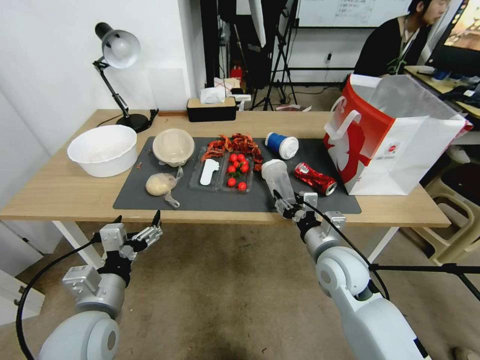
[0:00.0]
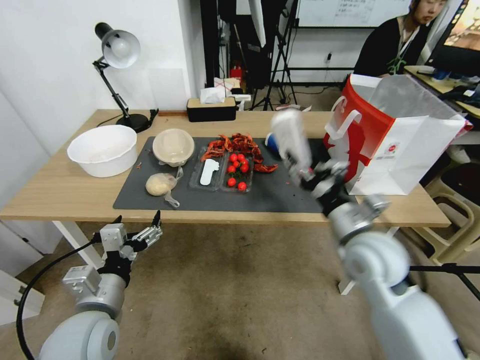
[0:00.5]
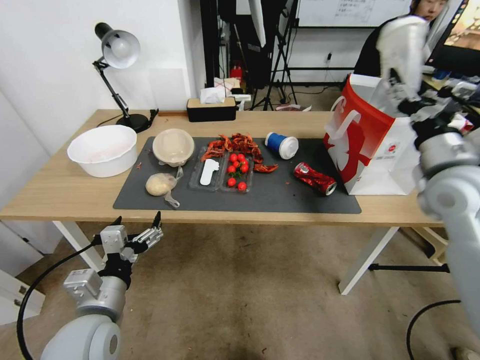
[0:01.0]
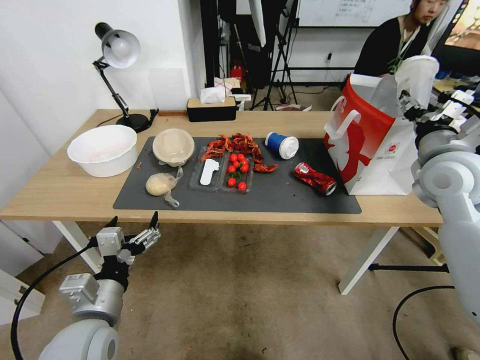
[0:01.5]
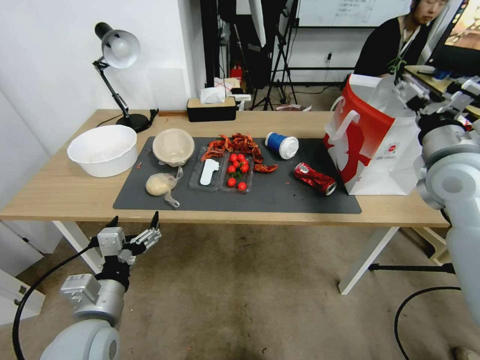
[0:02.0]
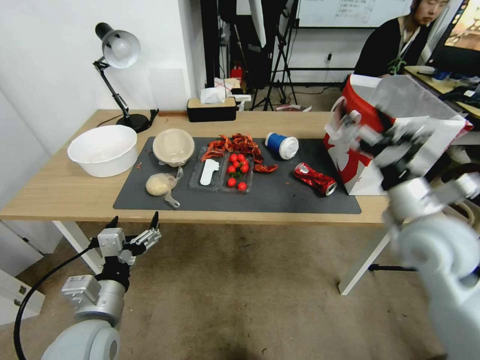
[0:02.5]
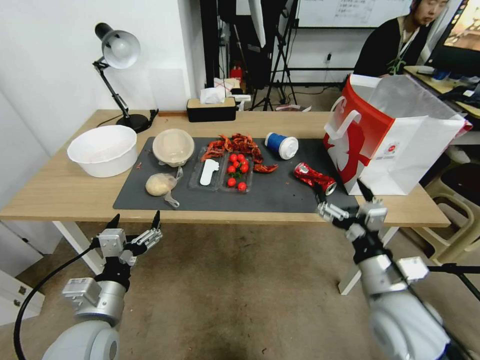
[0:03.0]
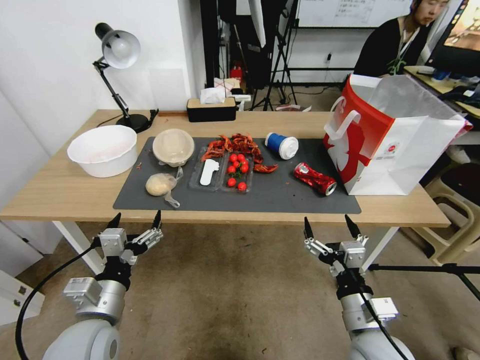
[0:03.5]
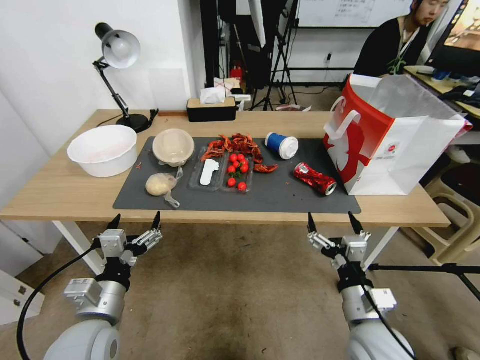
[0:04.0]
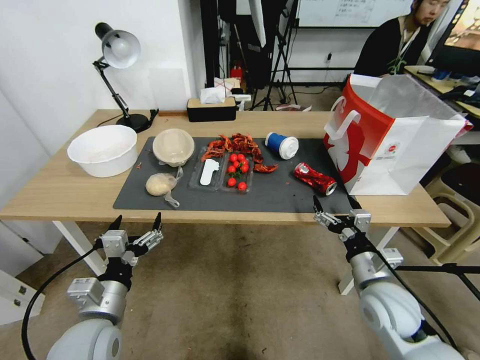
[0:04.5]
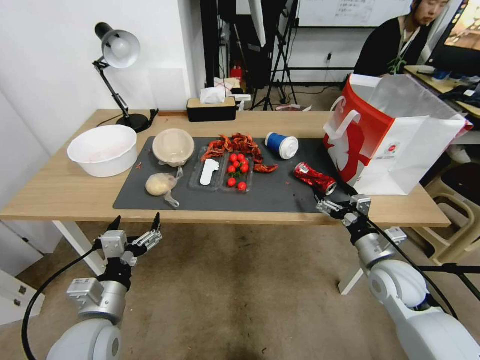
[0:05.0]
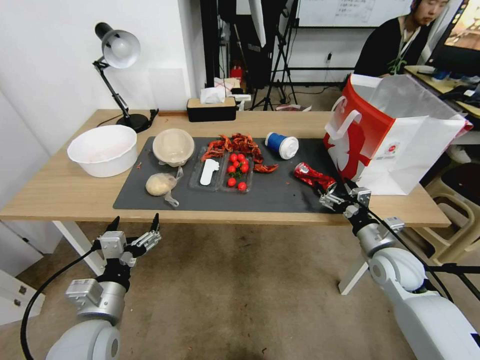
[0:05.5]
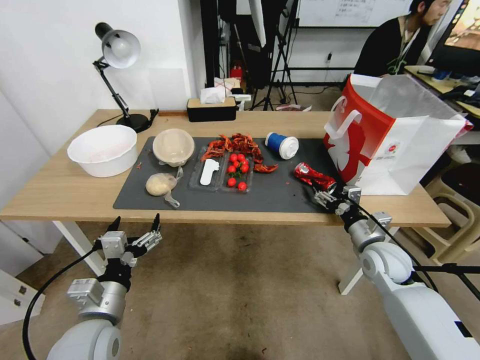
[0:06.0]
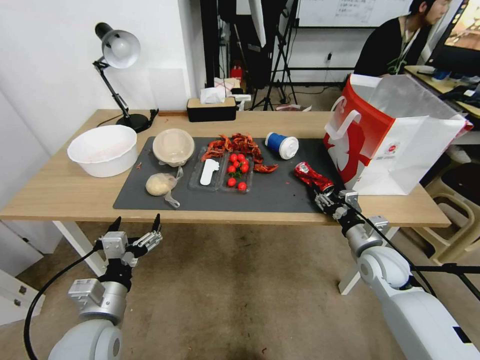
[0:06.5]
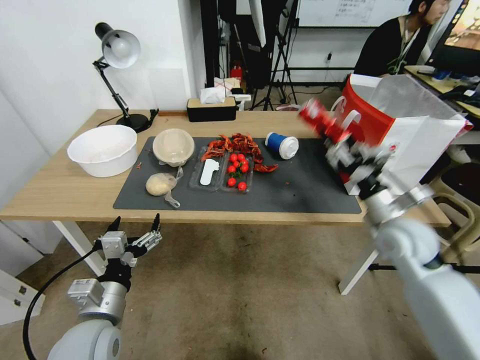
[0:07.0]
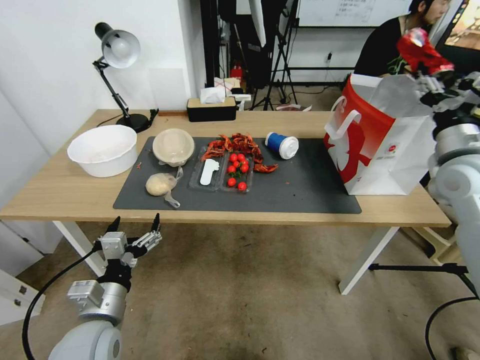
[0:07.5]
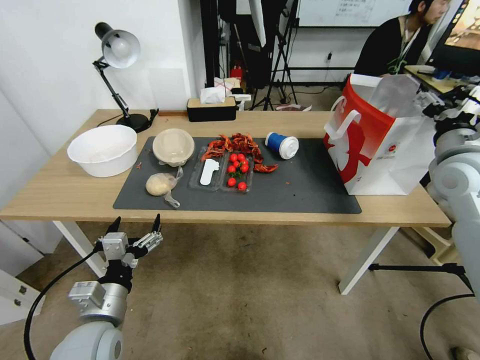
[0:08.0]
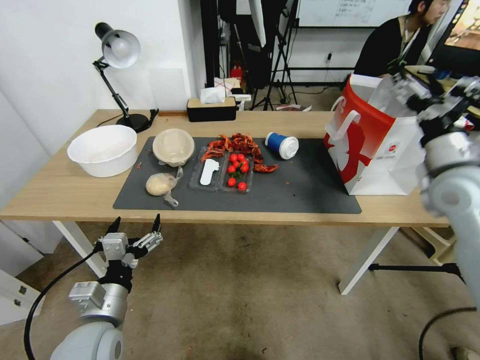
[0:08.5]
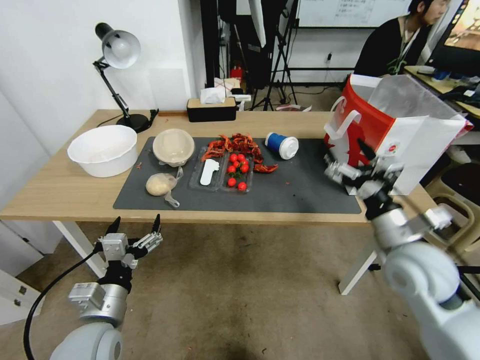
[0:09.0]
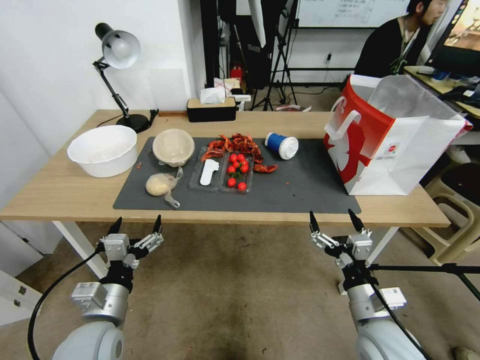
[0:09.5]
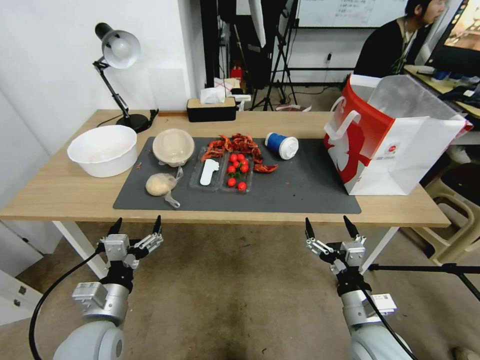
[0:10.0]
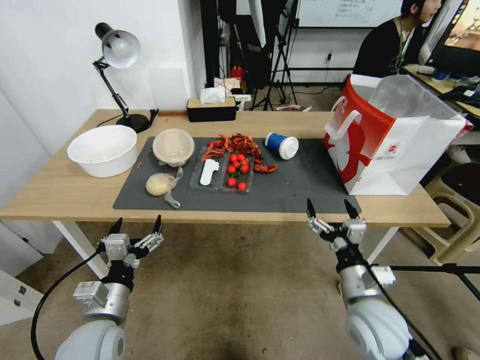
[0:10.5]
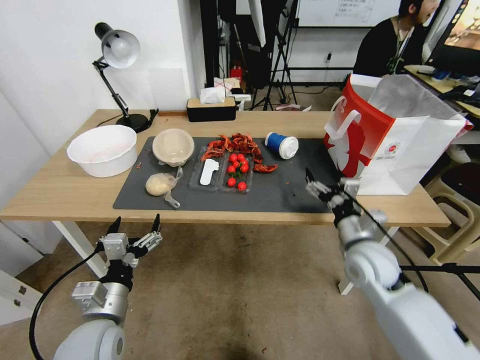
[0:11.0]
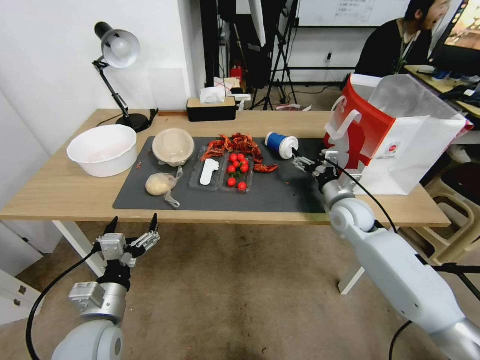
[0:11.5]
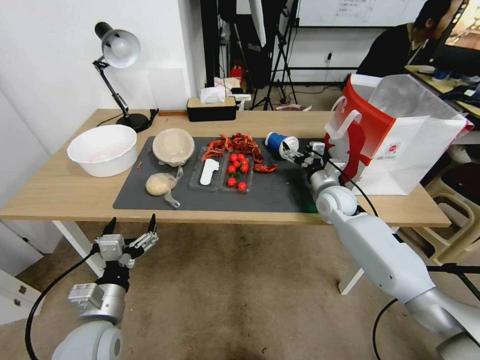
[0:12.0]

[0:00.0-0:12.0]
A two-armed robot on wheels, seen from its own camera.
0.0 to 2.0 s: The right gripper moves upward and to the right, about 25 cm, and opens its fingers.
2.0 to 4.0 s: The right gripper is displaced downward, backward and to the left by some 35 cm.
4.0 to 6.0 s: The right gripper moves forward and to the right, about 20 cm.
6.0 to 8.0 s: The right gripper heads upward, covering some 25 cm, and closes, then opens again.
8.0 to 10.0 s: The right gripper goes roughly 35 cm downward, backward and to the left, and opens up.
10.0 to 12.0 s: The right gripper is displaced forward by roughly 30 cm.

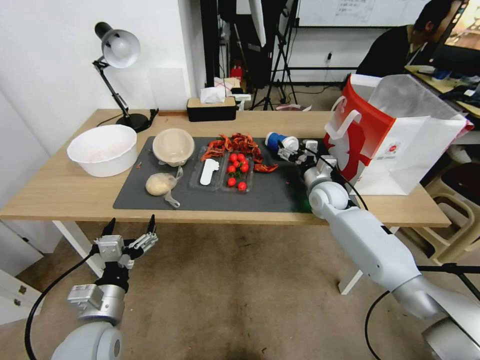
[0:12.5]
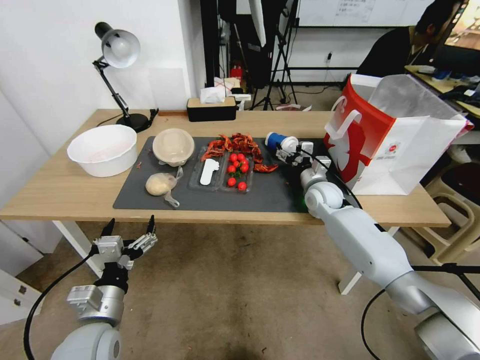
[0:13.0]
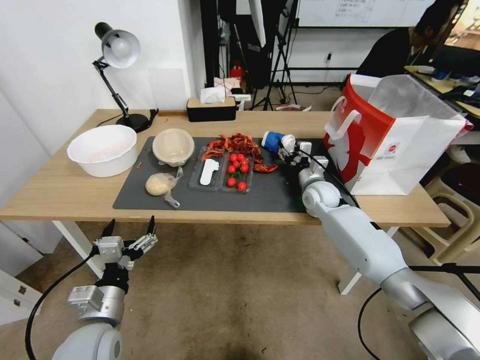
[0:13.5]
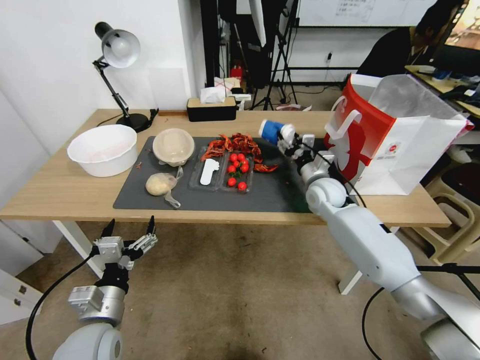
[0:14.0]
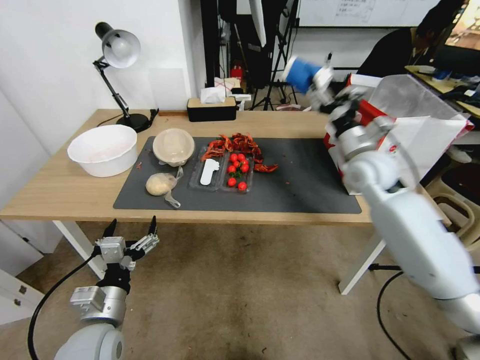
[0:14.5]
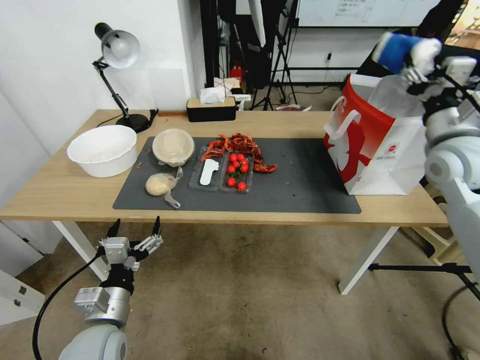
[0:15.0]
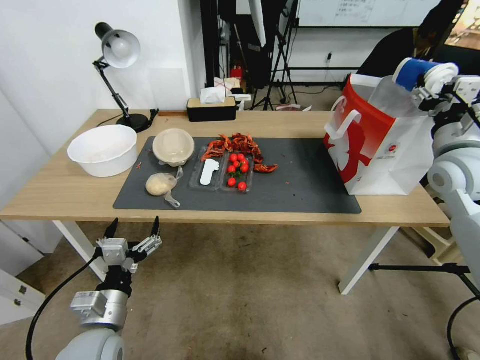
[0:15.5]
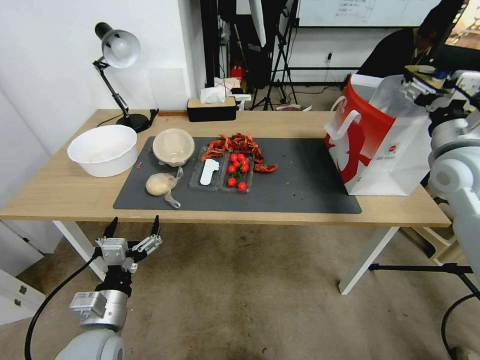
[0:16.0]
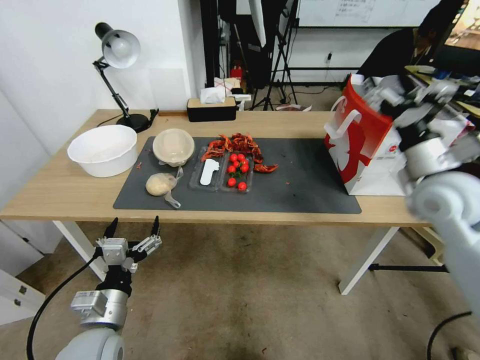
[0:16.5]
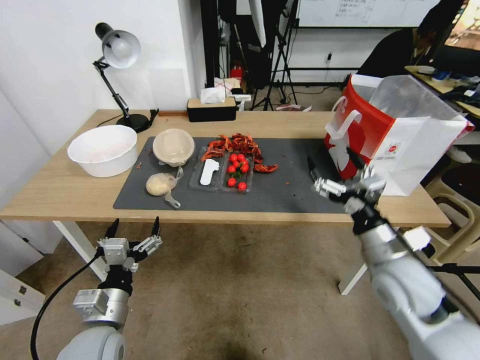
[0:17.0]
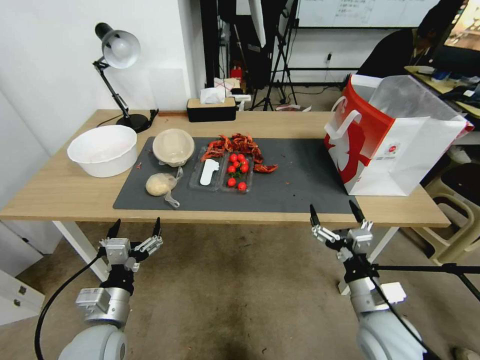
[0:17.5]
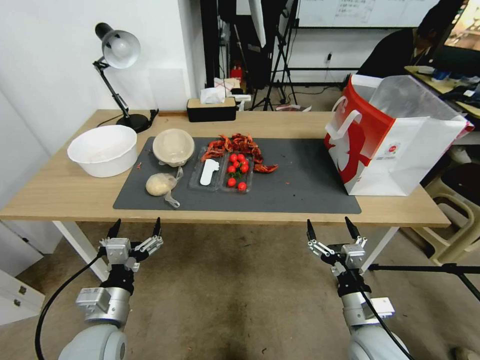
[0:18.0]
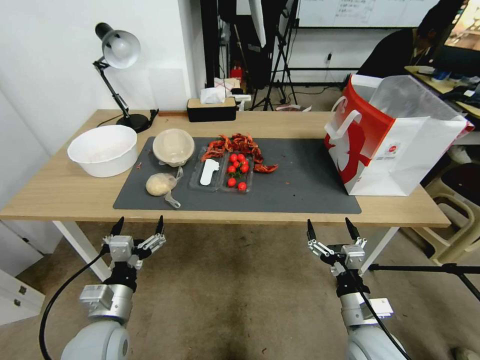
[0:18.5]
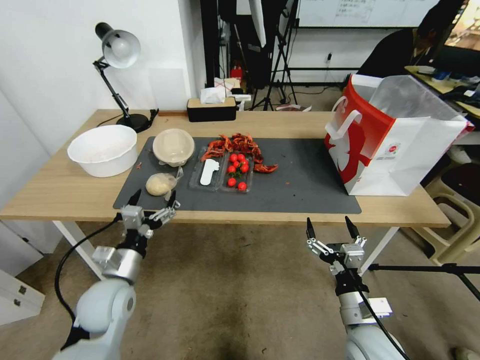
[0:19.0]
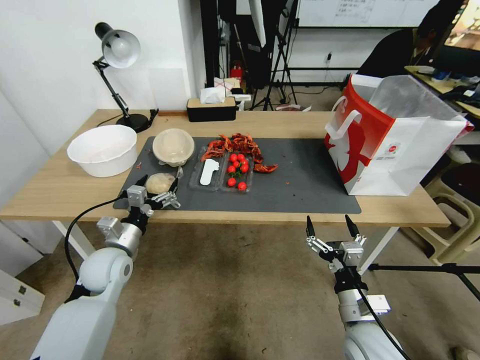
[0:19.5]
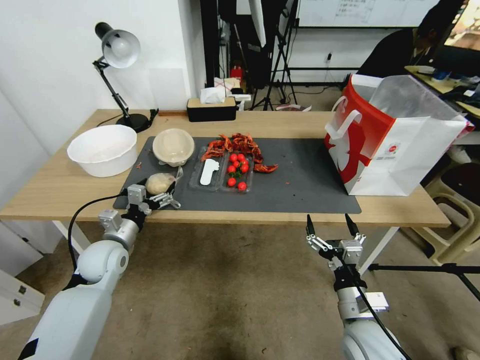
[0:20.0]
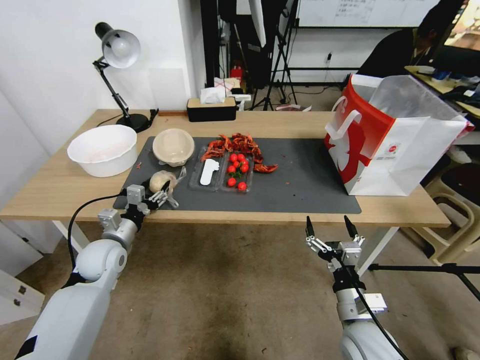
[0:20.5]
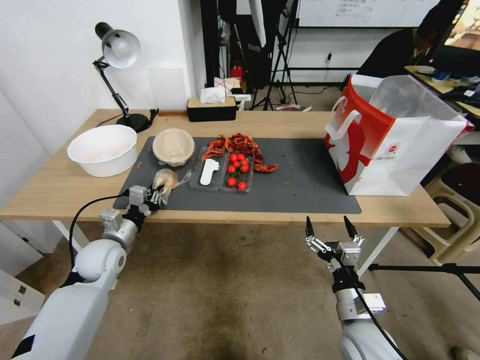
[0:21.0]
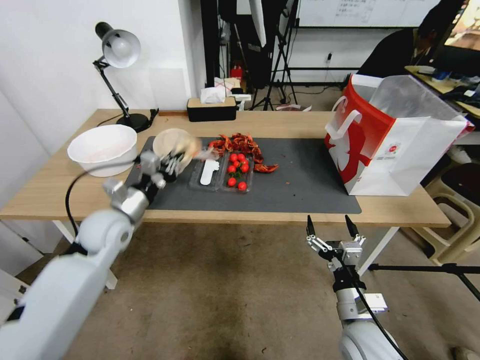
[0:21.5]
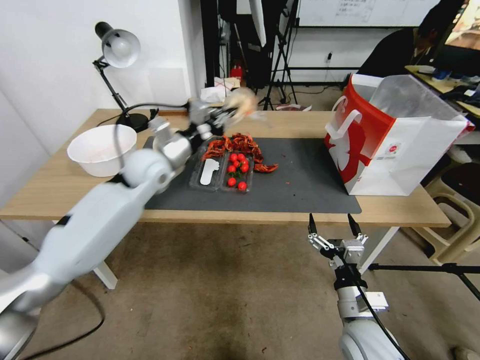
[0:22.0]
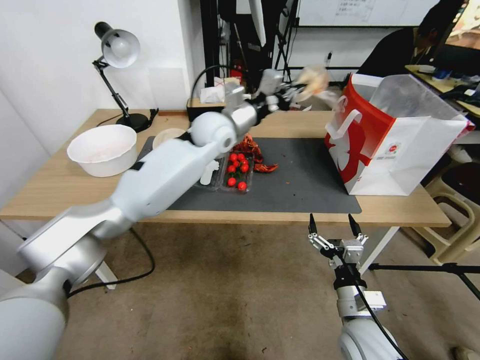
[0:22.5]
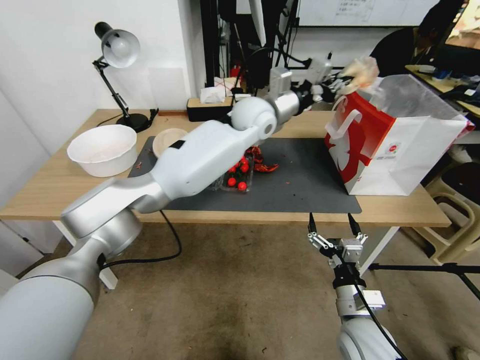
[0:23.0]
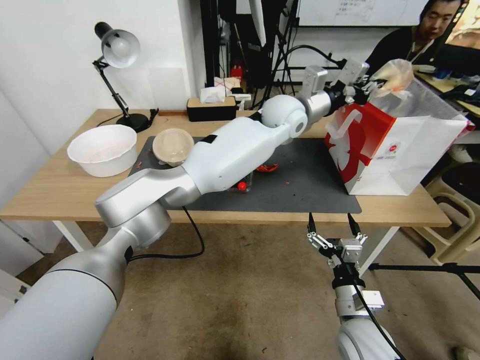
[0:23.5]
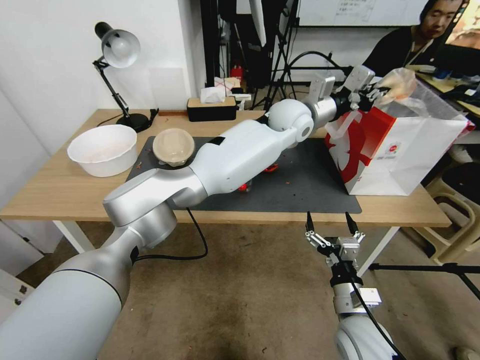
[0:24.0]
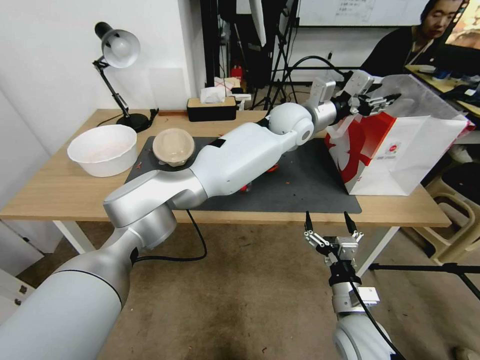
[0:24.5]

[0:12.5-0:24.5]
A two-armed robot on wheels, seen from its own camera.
12.5 to 14.5 s: The right gripper heads upward, covering some 15 cm, and closes its fingers.
14.5 to 16.5 s: The right gripper heads backward and to the right, covering approximately 15 cm, and opens its fingers.
16.5 to 18.5 s: The right gripper is displaced downward and backward by about 30 cm.
18.5 to 20.5 s: The left gripper shifts some 20 cm forward and to the left, and closes up.
20.5 to 22.5 s: The left gripper travels upward, to the right and forward by approximately 35 cm, and closes its fingers.
22.5 to 24.5 s: The left gripper is displaced to the right by about 25 cm, and opens.

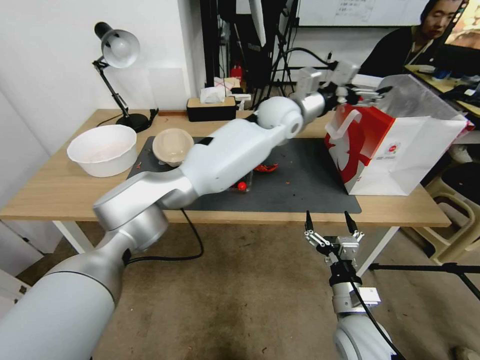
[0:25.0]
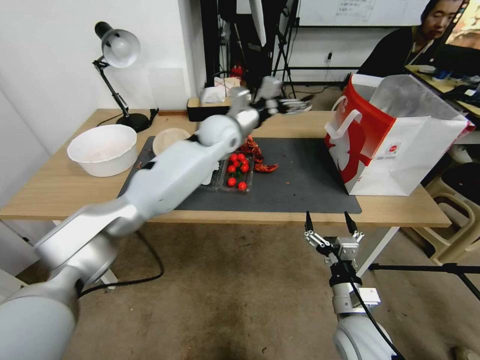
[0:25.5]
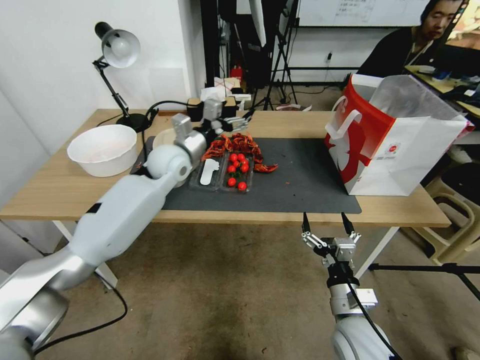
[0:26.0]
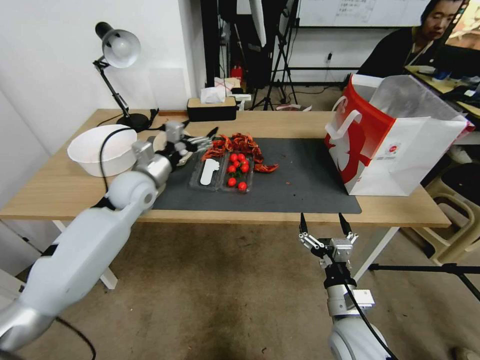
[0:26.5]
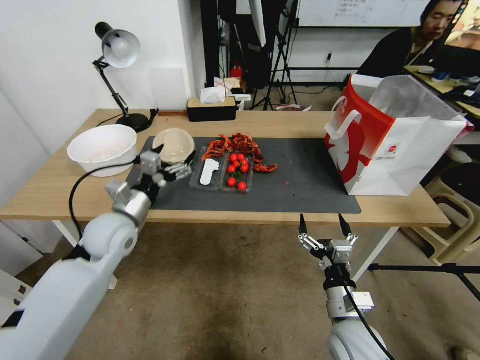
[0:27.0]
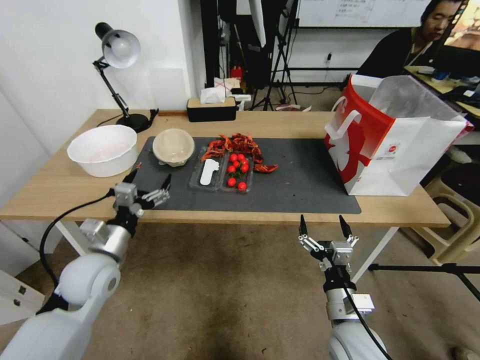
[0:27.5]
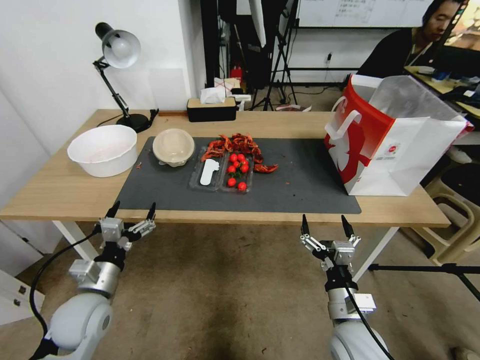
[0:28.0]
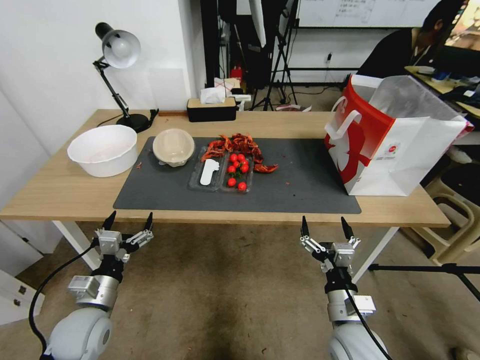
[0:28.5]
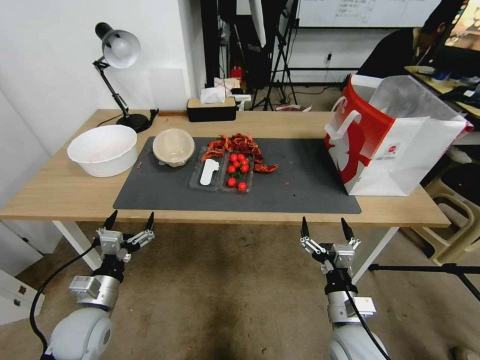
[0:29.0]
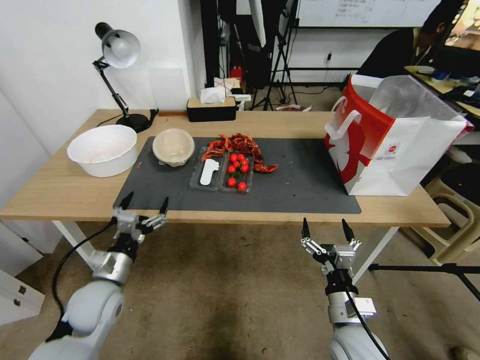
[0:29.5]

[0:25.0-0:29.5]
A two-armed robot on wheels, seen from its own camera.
25.0 to 27.0 s: The left gripper moves to the left, backward and downward, roughly 50 cm.
27.0 to 29.5 s: The left gripper travels downward and backward by approximately 15 cm.
